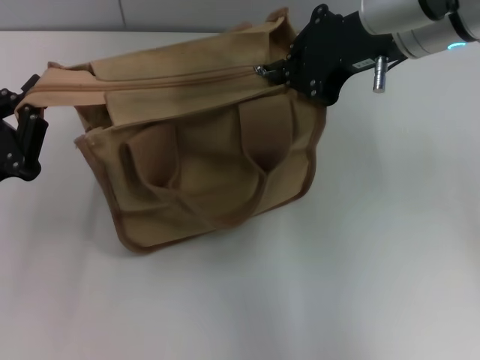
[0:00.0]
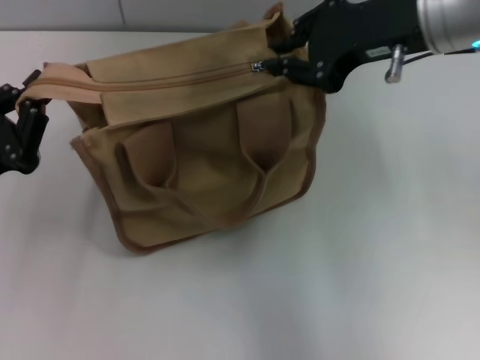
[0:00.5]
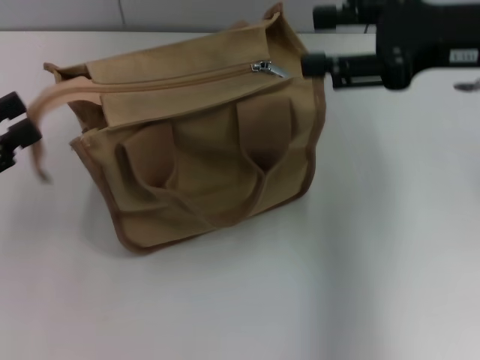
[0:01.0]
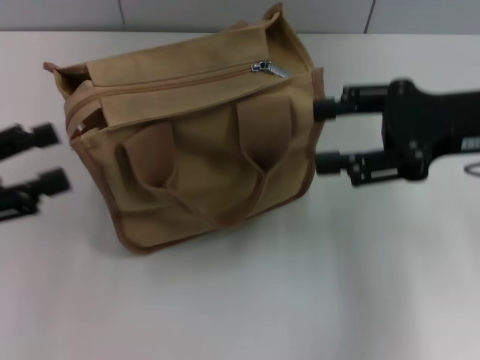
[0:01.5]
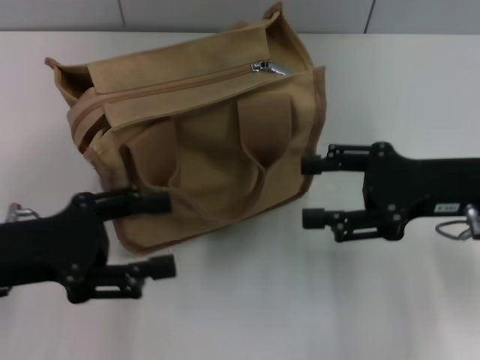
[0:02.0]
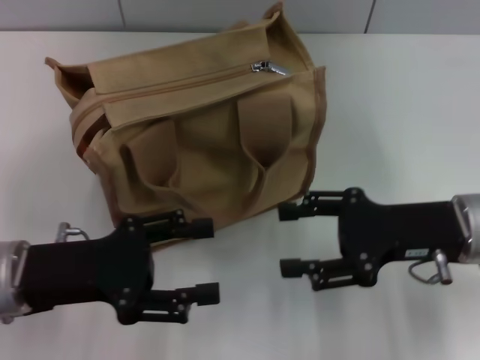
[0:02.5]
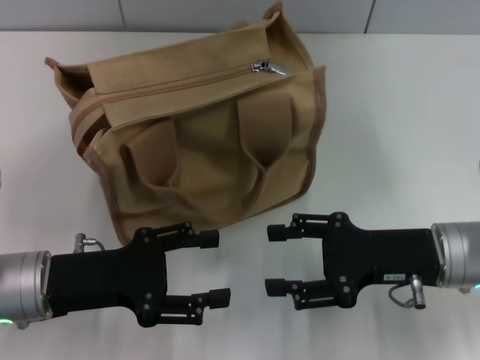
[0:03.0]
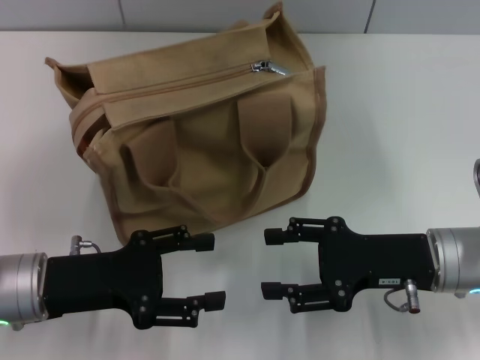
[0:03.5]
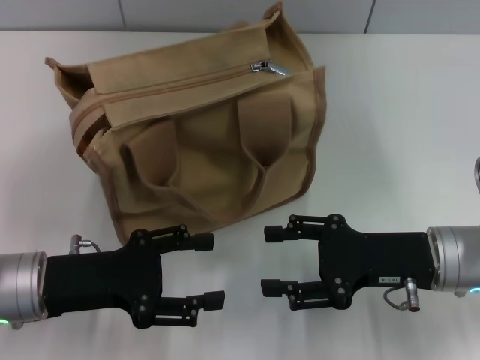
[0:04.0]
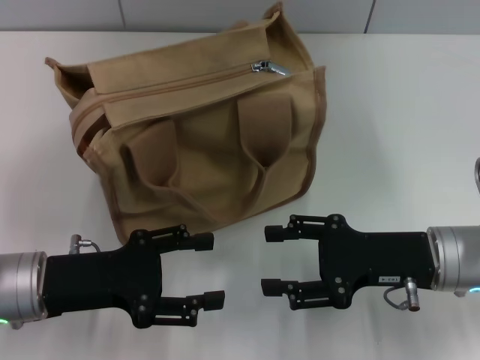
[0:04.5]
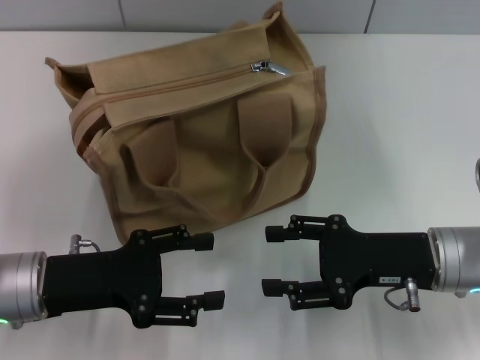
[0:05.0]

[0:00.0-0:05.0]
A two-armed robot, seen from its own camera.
0:00.0 to 0:02.5: The right gripper travels downward, backward and to the right by some 20 cm, and opens; the left gripper goes about 5 cm to the right, and opens.
0:02.5 to 0:05.0: The grippers stay close to where they were, moving slightly.

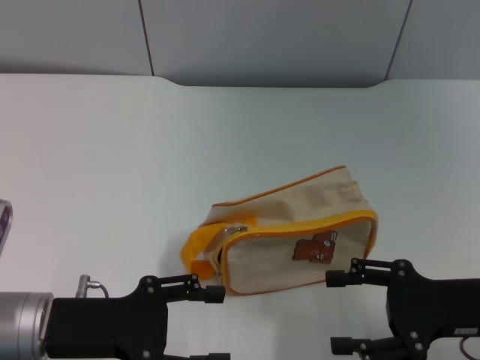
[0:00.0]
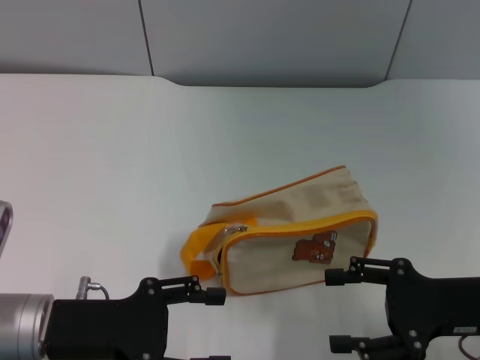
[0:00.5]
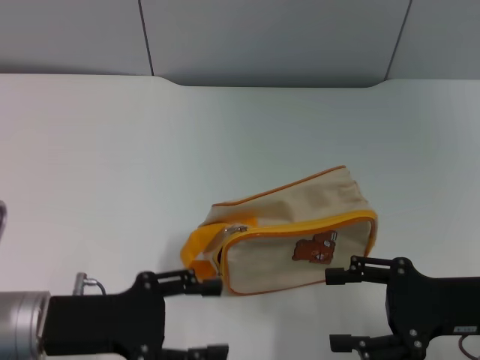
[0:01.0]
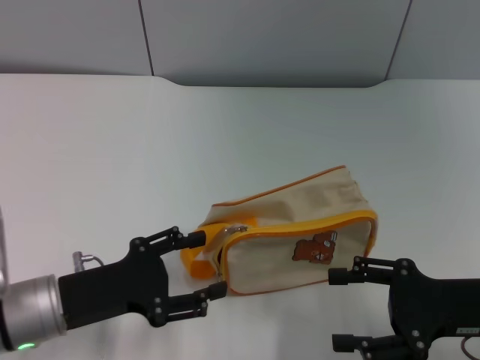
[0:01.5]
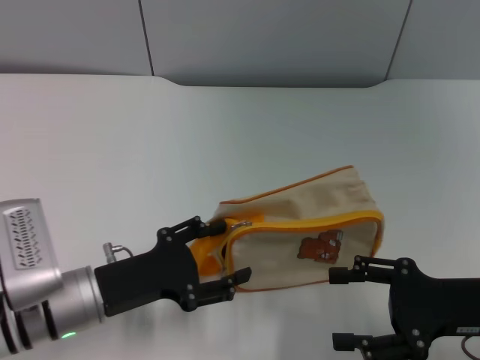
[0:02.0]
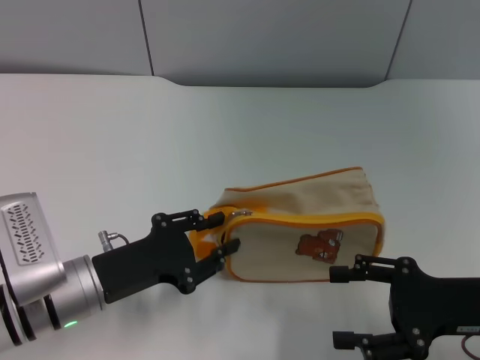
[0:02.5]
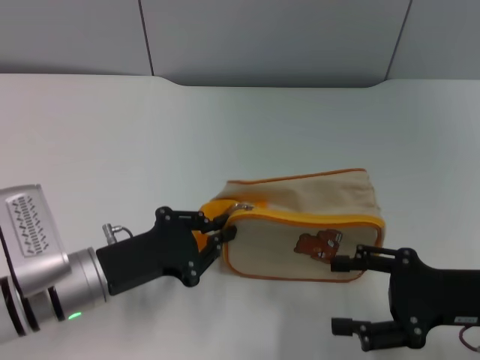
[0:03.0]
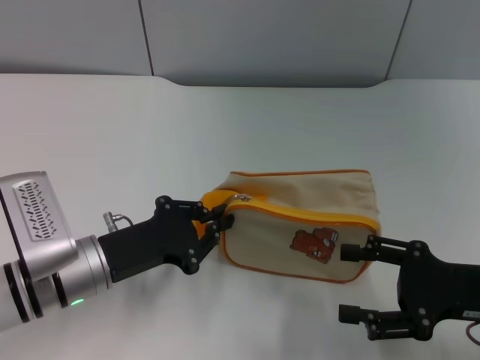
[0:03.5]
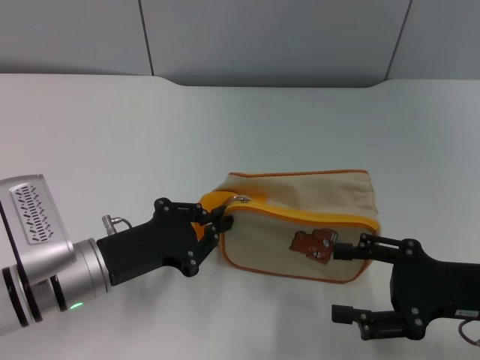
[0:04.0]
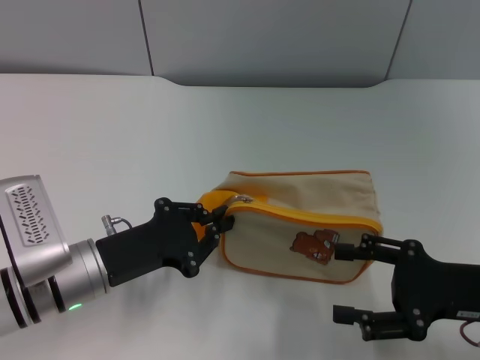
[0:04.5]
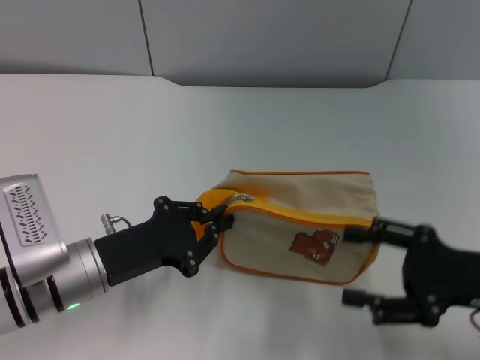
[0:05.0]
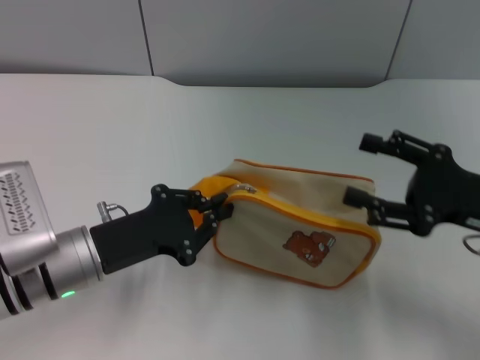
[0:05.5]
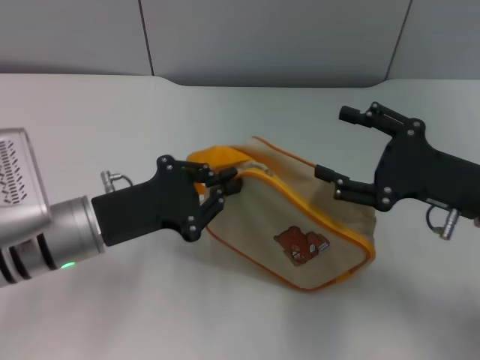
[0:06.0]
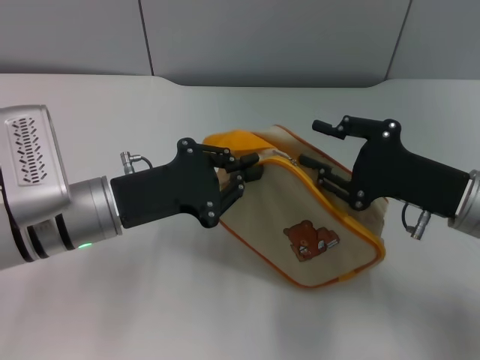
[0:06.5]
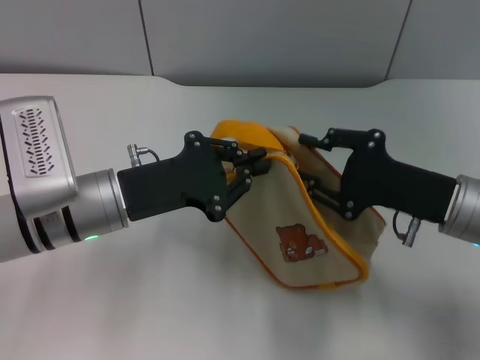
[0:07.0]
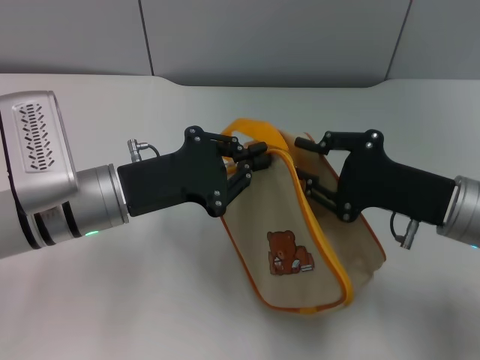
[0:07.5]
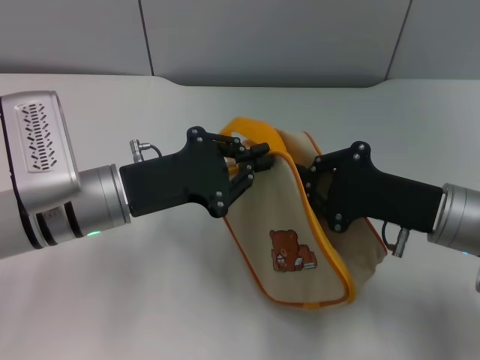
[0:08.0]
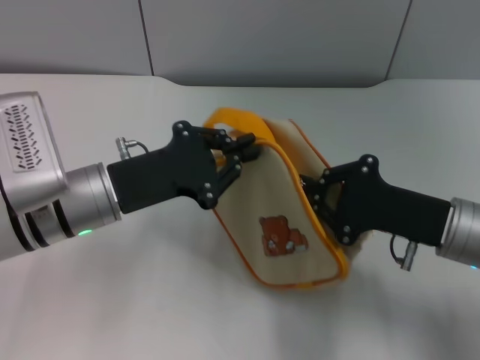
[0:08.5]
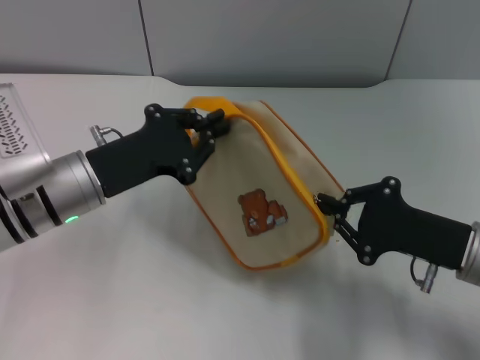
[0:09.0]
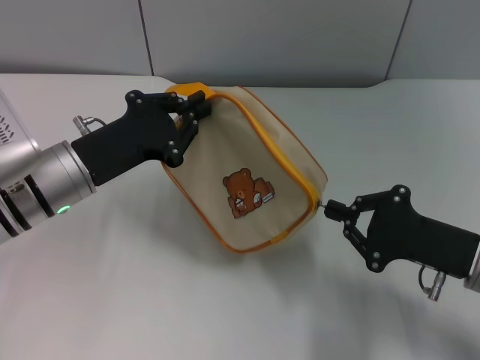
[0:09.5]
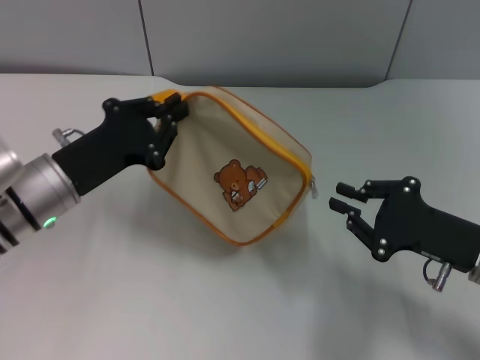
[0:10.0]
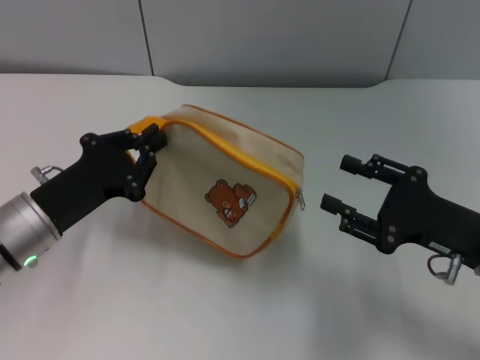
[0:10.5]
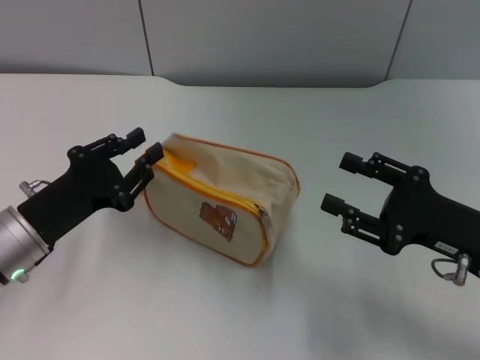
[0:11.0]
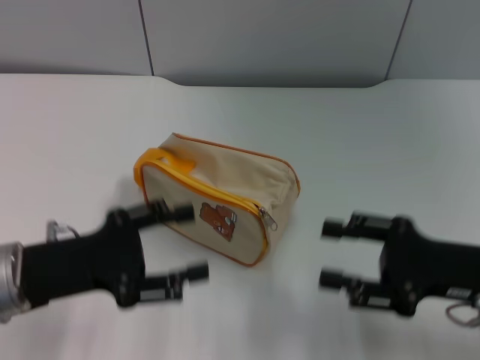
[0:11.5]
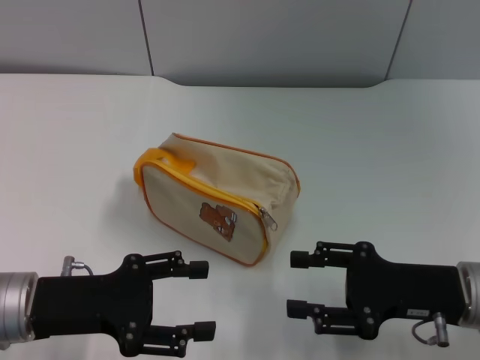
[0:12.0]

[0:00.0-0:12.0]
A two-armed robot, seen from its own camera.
Step, 0:00.0 to 0:06.0: Pick up the bag with left gripper.
Step, 0:06.5 to 0:10.0: Unzip the zipper of bag with right gripper.
Step, 0:10.5 to 0:11.0: Place the bag on the table with left gripper.
0:02.0 to 0:04.0: The left gripper closes.
0:04.0 to 0:06.0: The right gripper shifts about 5 cm forward.
0:06.0 to 0:08.0: The right gripper closes.
0:08.0 to 0:10.0: The right gripper shifts by roughly 5 cm.
0:10.0 to 0:12.0: The right gripper opens up. Meanwhile the left gripper goes some 10 cm backward, and opens.

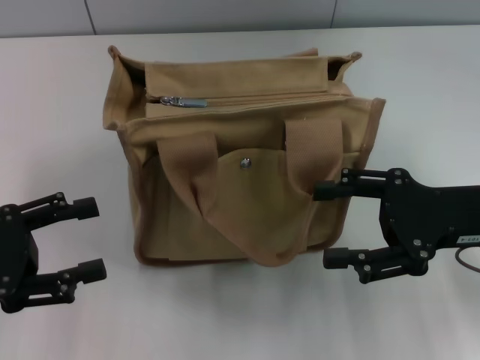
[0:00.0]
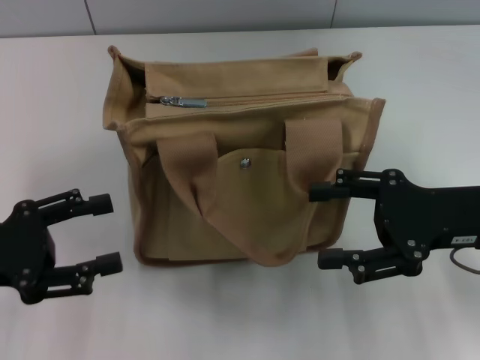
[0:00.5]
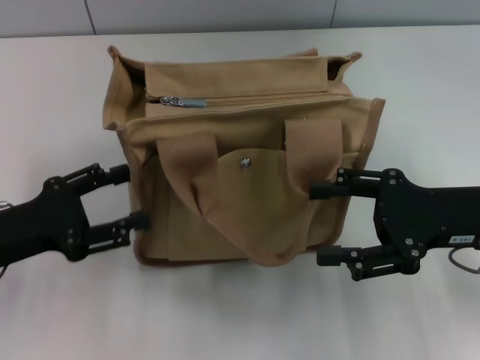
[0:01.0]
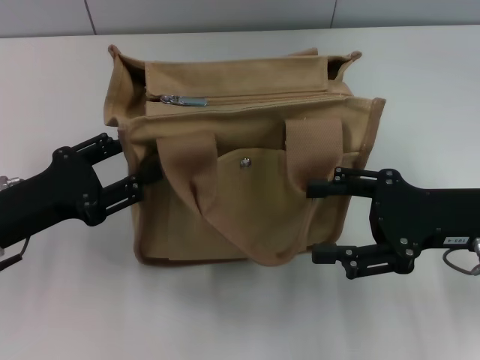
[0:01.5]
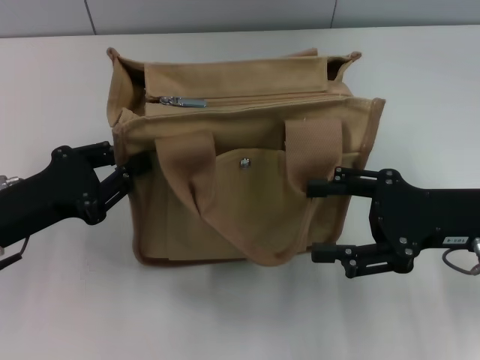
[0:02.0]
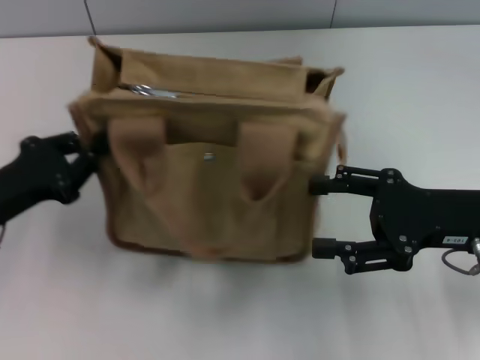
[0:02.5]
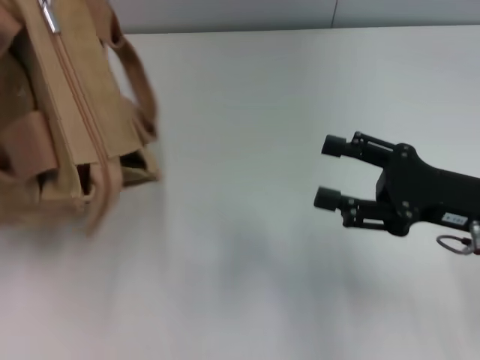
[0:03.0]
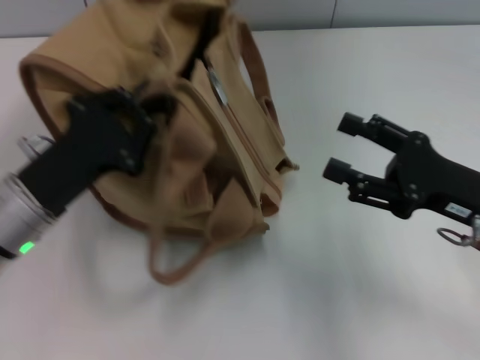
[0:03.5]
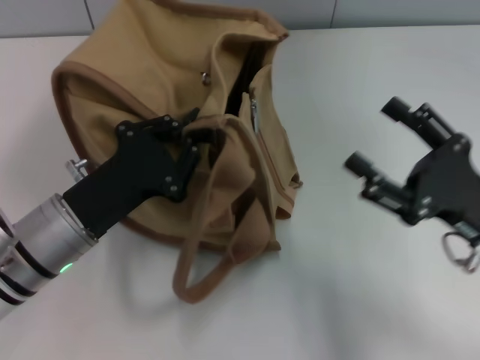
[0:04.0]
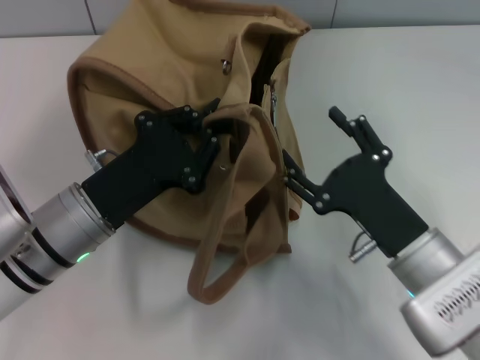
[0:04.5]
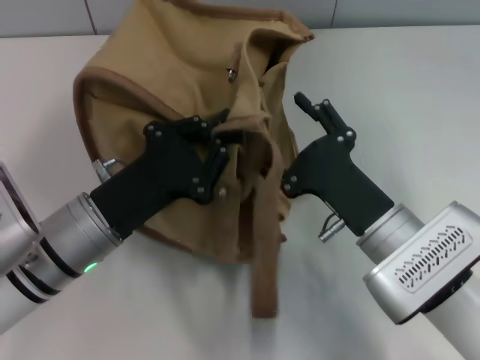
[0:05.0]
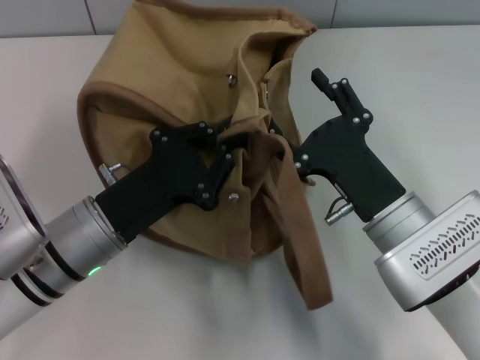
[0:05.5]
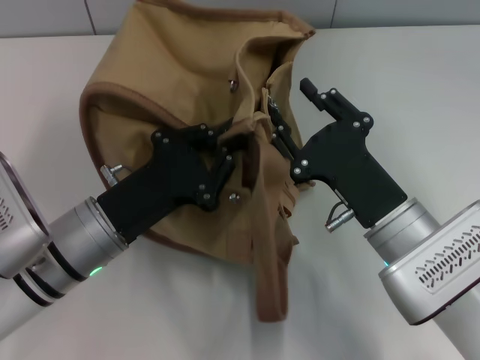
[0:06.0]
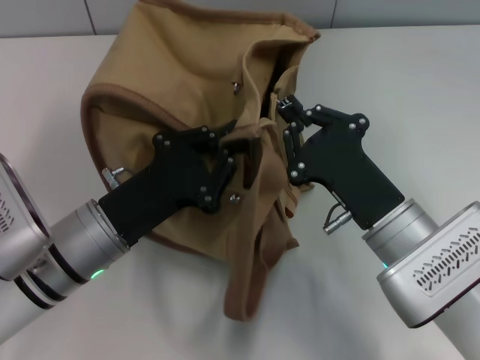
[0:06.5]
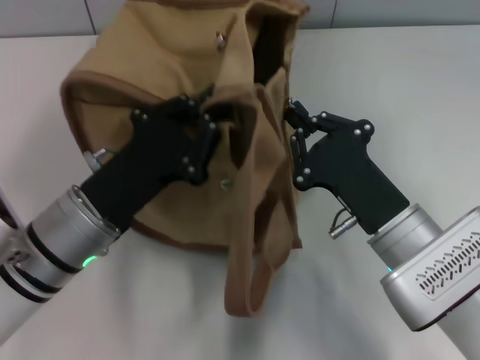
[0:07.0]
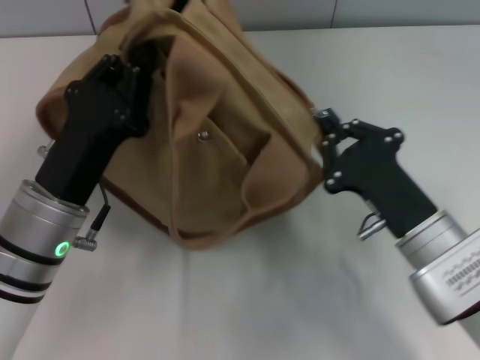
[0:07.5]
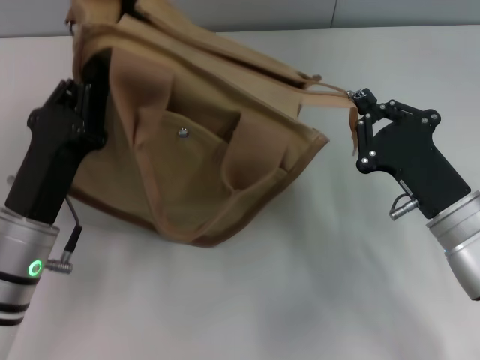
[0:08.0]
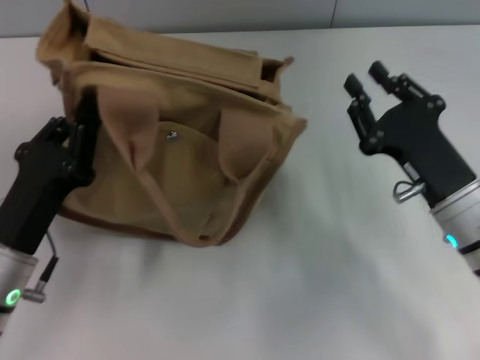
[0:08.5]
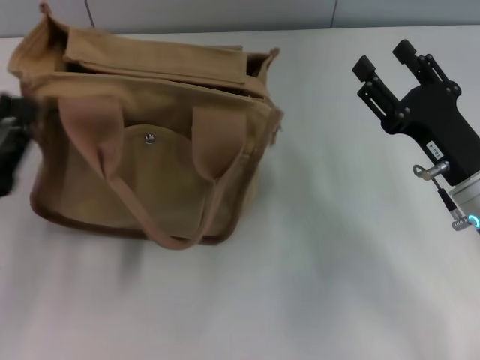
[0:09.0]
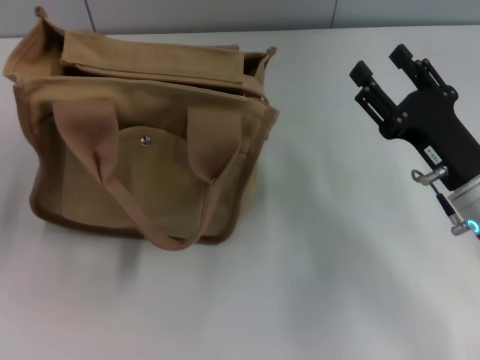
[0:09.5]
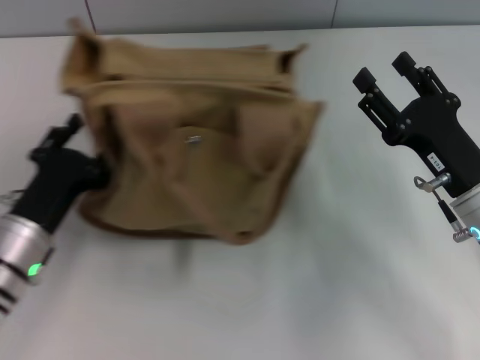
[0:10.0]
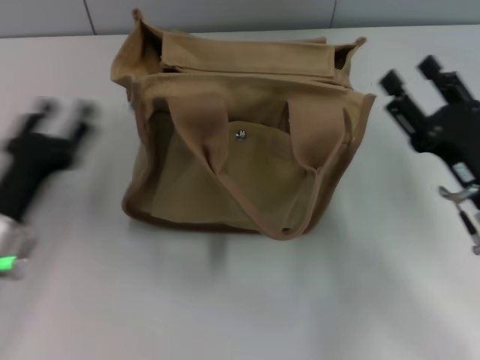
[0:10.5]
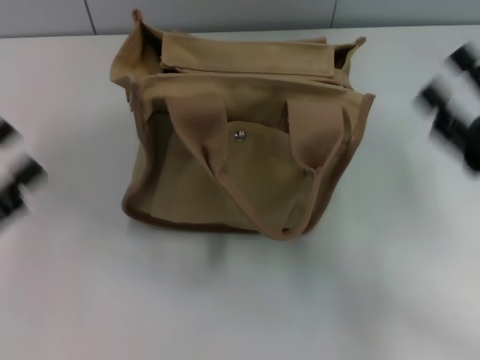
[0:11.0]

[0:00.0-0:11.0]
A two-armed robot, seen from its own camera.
Step, 0:00.0 to 0:08.0: Pull open the zipper with your right hand.
Step, 0:08.5 to 0:09.0: Grab the bag with your left hand.
0:00.0 to 0:02.0: The left gripper shifts about 5 cm to the right, and closes its fingers.
0:03.5 to 0:05.5: The left gripper shifts about 5 cm to the right; the right gripper heads to the left, covering approximately 10 cm.
0:05.5 to 0:07.5: The right gripper closes up.
0:07.5 to 0:09.0: The left gripper moves to the left and backward, approximately 10 cm. The right gripper changes place by roughly 5 cm, and opens up.
0:09.0 to 0:11.0: The left gripper goes about 5 cm to the left, and opens, while the right gripper is displaced to the right by roughly 5 cm.
